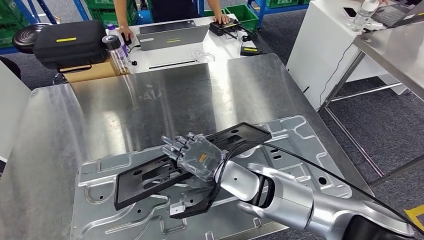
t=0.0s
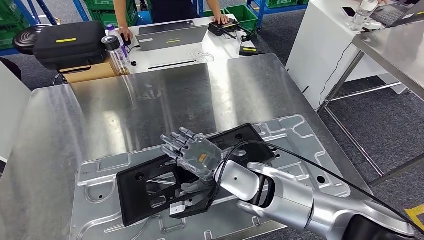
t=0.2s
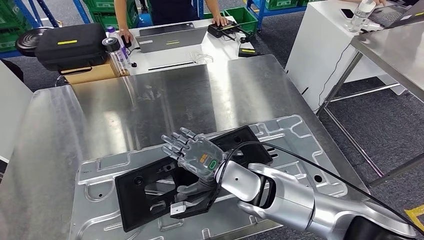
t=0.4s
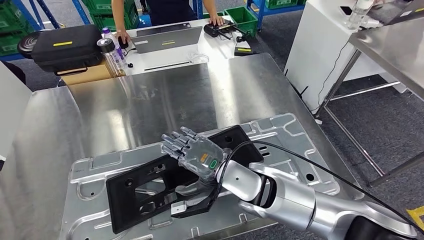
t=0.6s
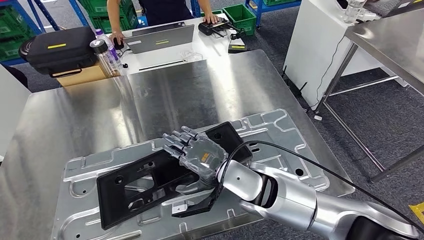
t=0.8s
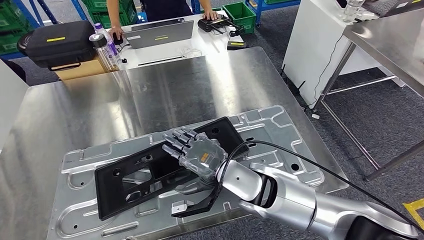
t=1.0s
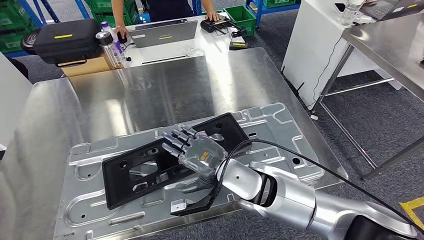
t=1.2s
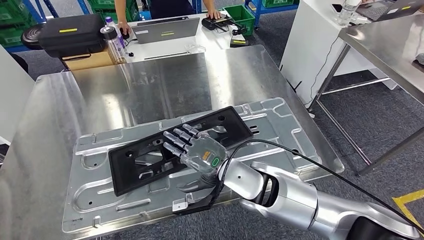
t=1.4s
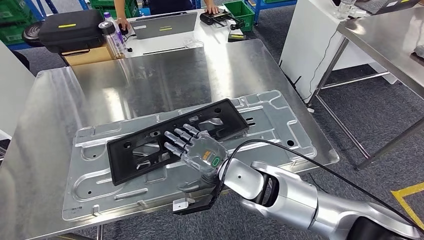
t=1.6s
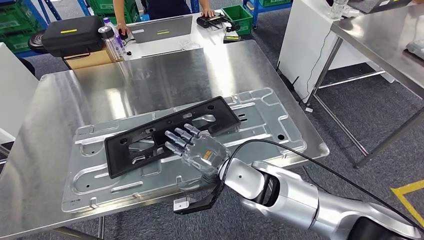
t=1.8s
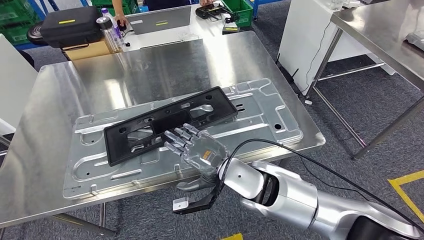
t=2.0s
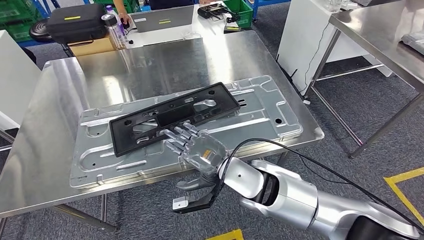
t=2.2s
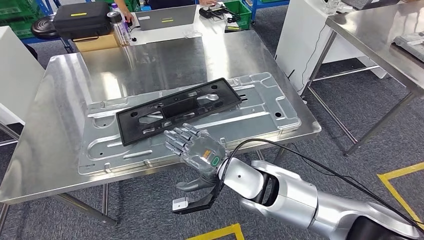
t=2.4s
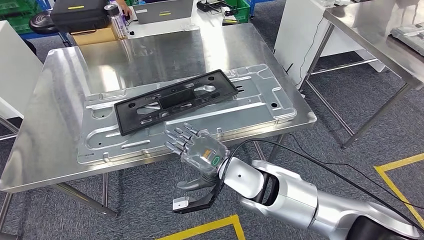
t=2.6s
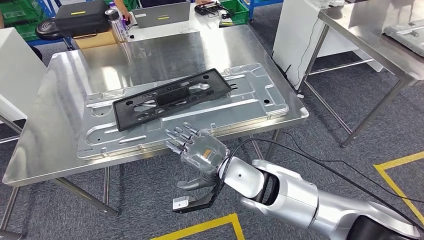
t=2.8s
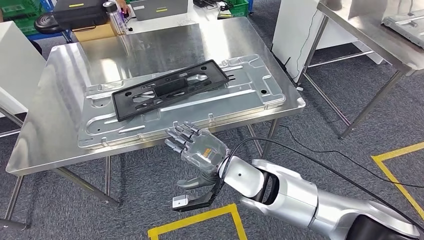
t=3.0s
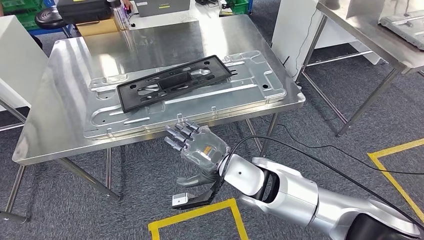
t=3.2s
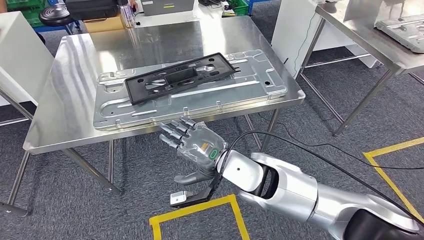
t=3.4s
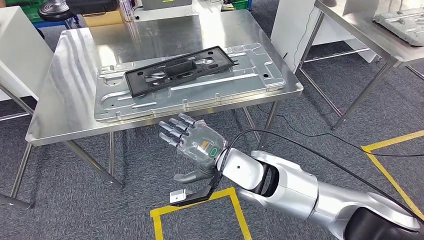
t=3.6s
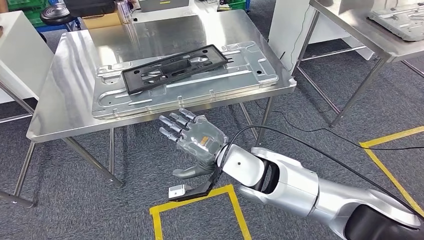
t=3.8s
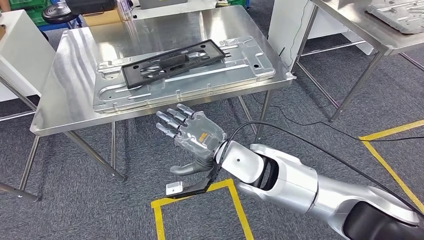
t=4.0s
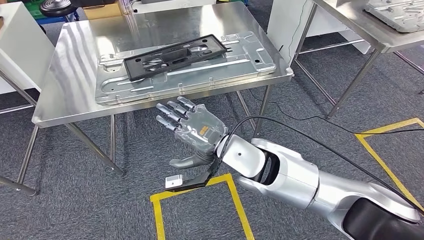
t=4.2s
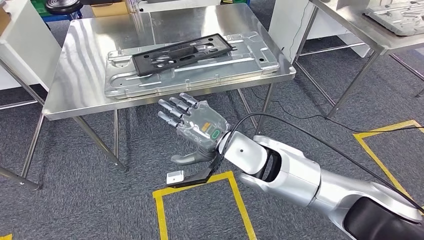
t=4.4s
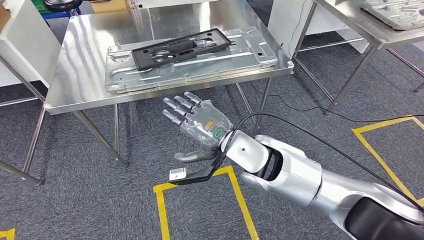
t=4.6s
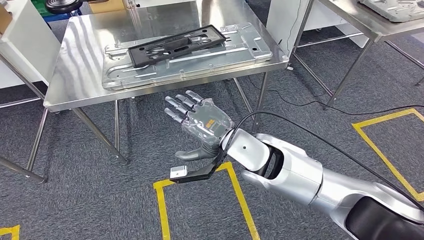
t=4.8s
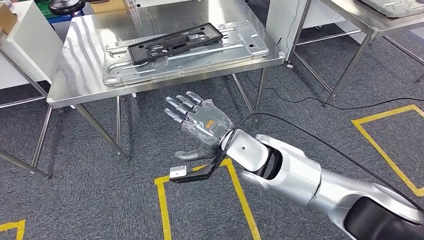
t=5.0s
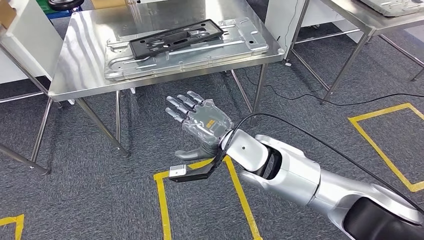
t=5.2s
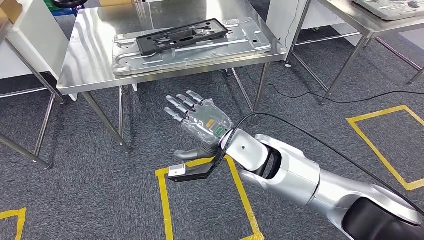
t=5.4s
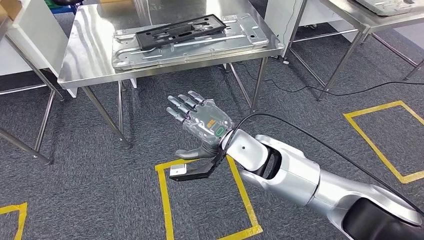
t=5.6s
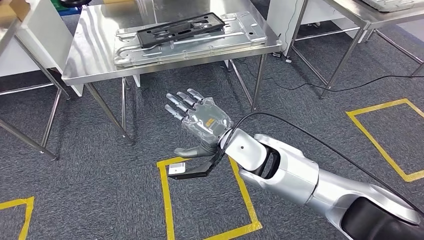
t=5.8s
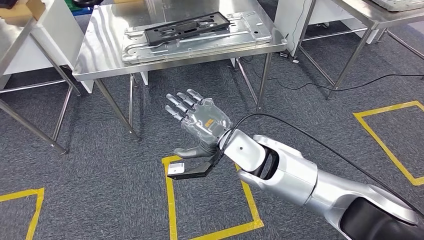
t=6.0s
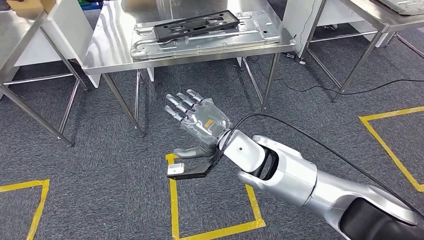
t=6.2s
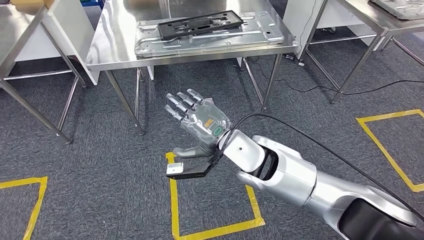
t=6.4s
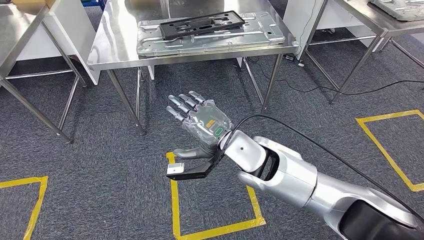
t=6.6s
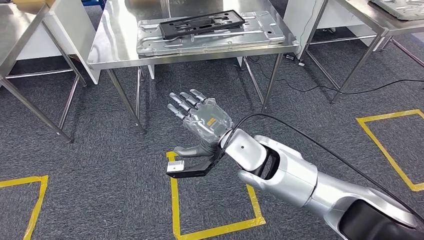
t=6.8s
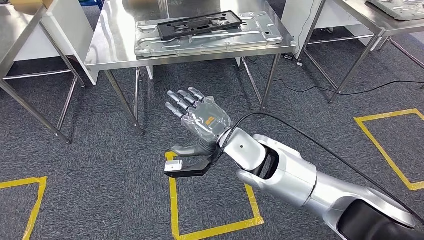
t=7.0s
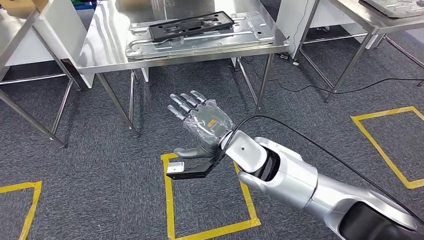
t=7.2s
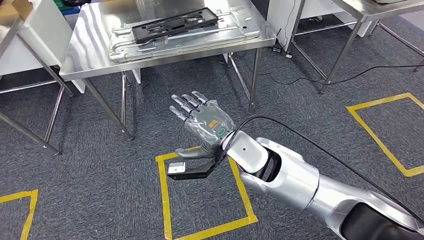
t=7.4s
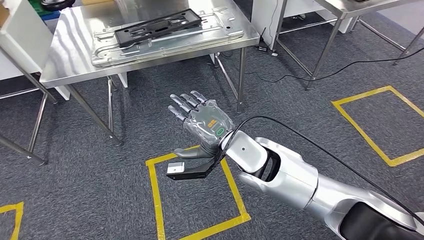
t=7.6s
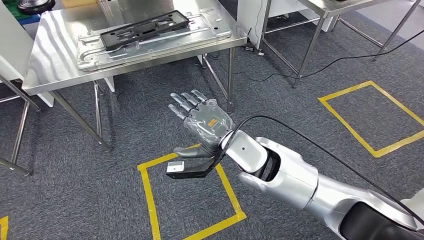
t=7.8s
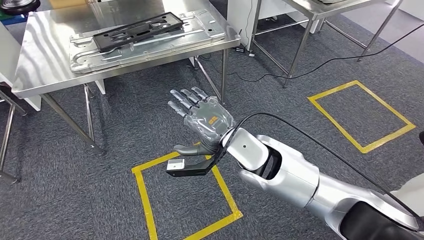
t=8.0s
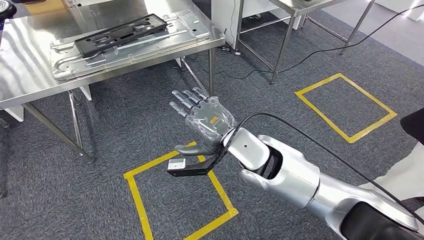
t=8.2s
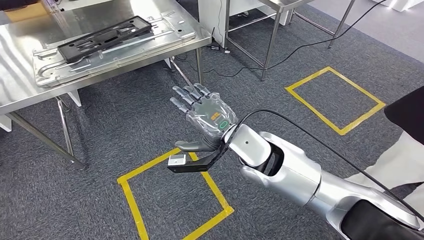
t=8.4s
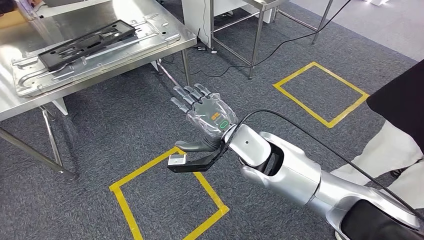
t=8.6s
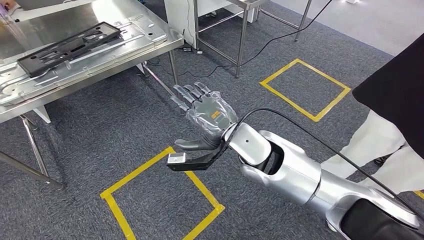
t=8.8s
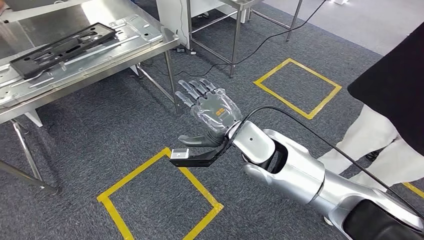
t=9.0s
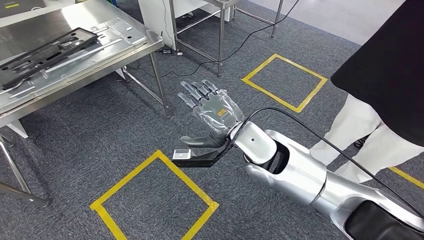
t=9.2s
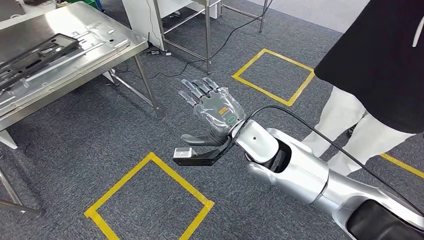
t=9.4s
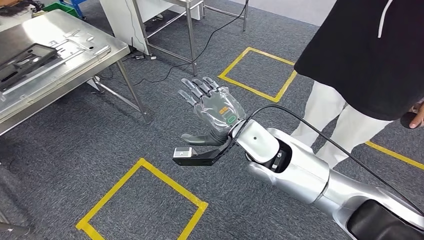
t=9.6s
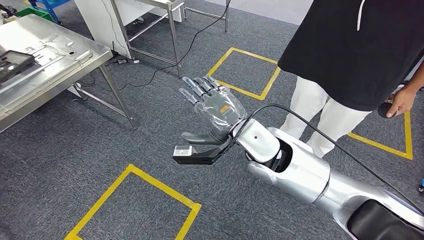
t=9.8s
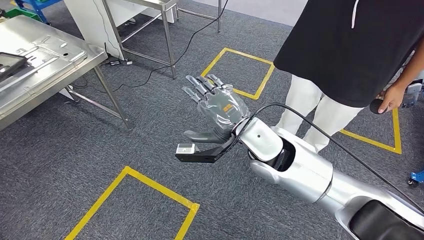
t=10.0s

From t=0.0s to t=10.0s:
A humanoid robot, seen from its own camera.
Step, from t=0.0s to t=1.4s: Insert the large material into the corresponding slot on the workbench.
Step, from t=3.0s to t=8.4s: Move to the initial position of the shelf.
